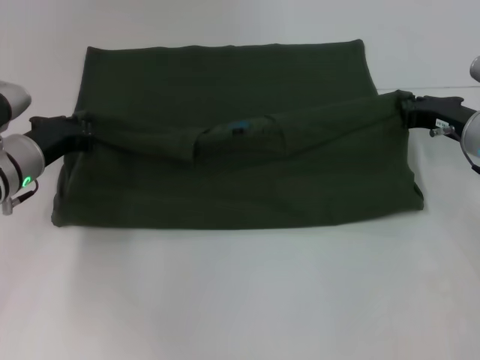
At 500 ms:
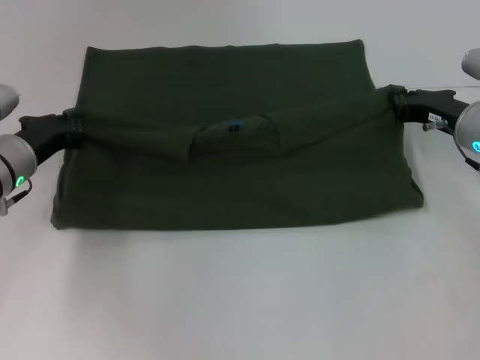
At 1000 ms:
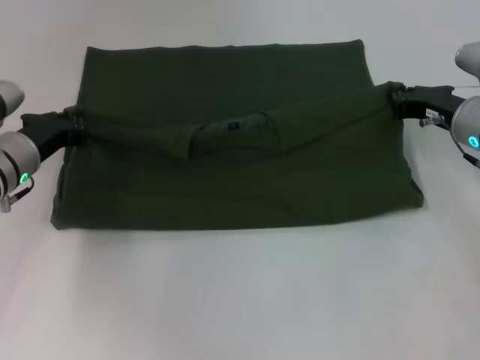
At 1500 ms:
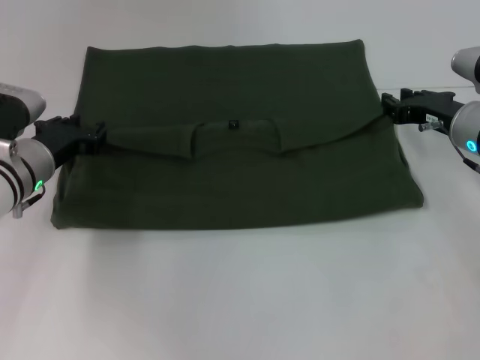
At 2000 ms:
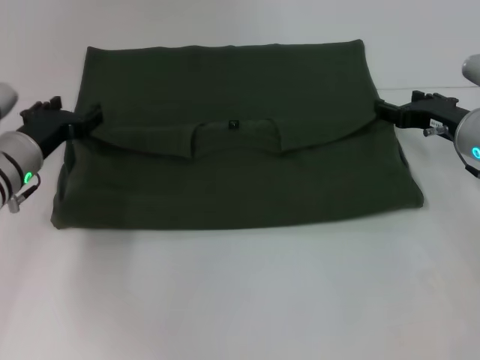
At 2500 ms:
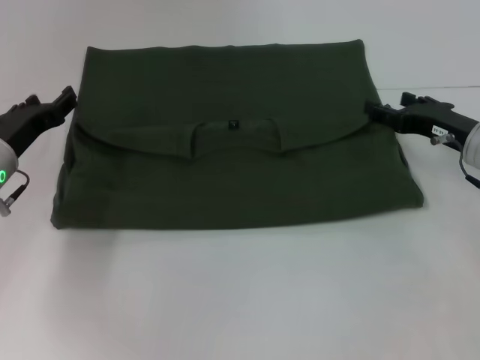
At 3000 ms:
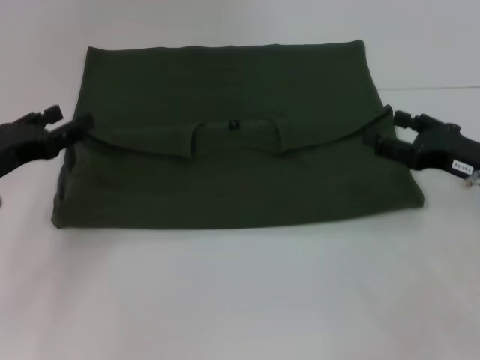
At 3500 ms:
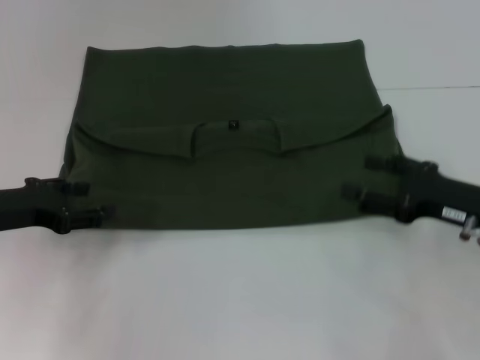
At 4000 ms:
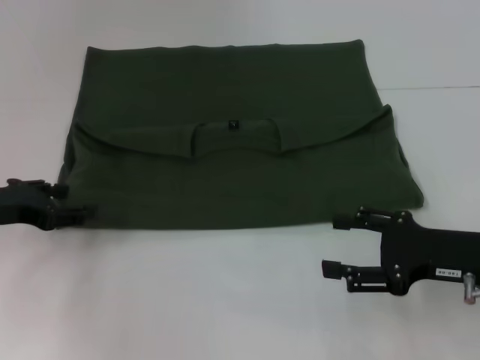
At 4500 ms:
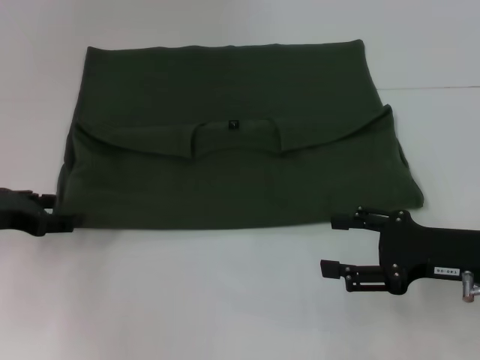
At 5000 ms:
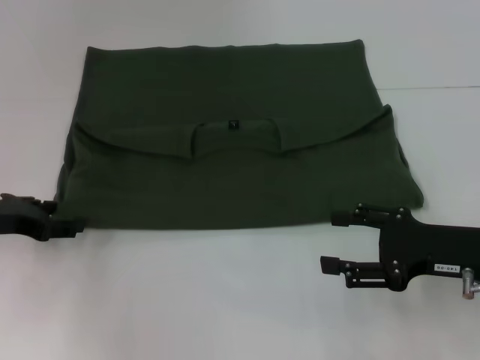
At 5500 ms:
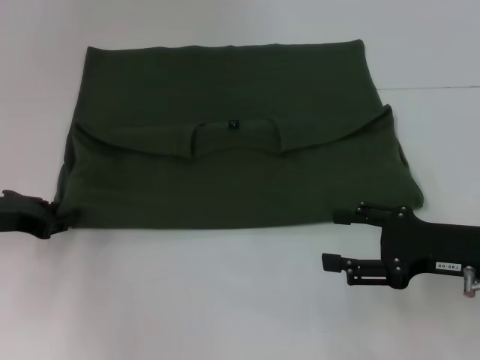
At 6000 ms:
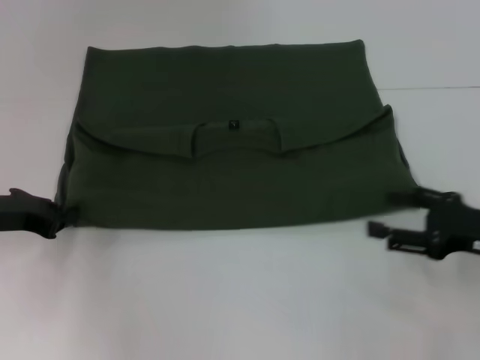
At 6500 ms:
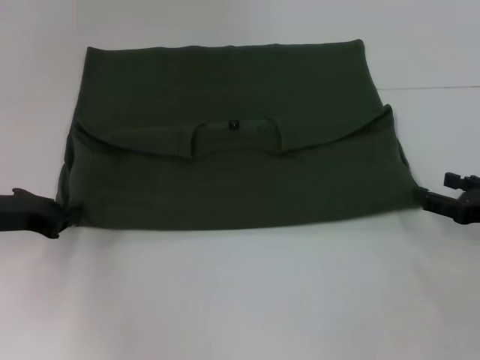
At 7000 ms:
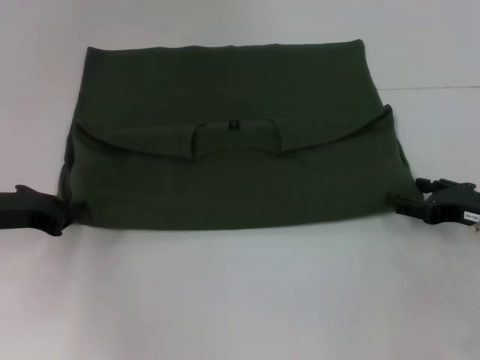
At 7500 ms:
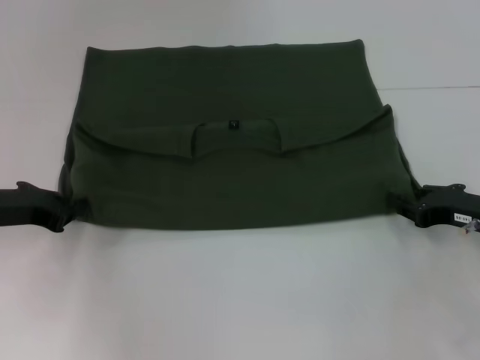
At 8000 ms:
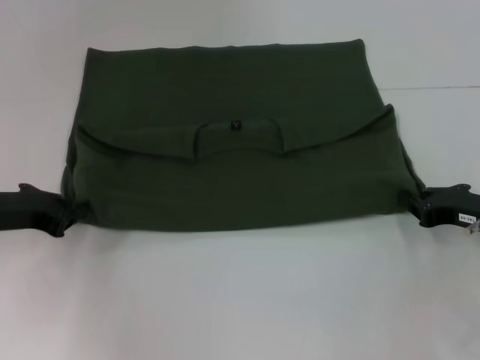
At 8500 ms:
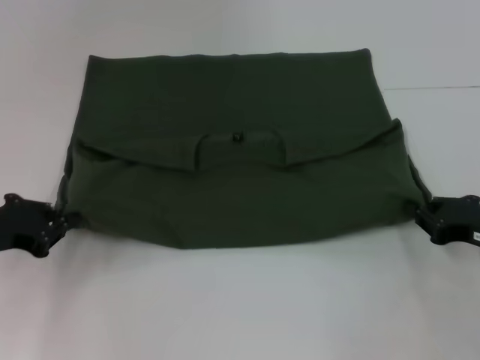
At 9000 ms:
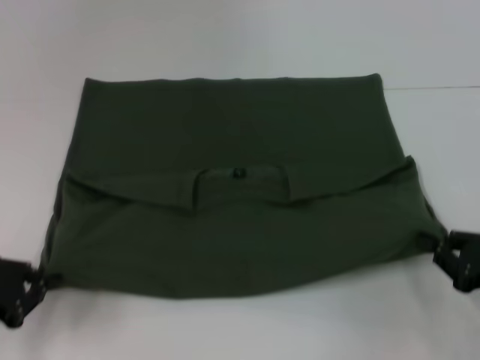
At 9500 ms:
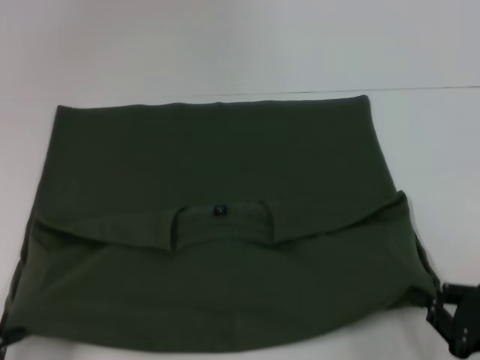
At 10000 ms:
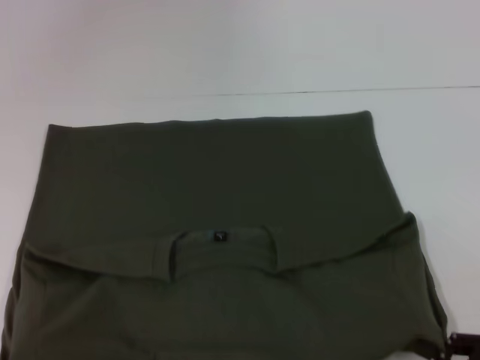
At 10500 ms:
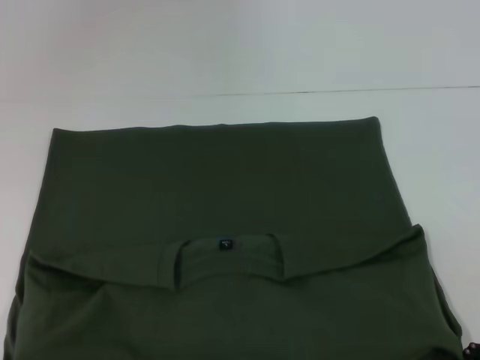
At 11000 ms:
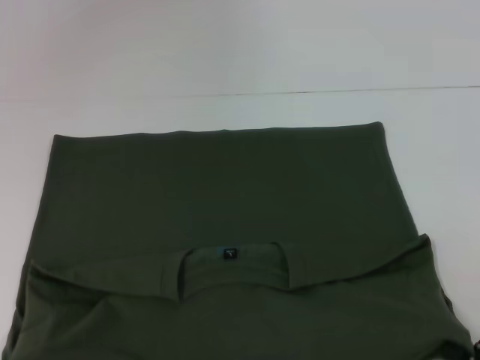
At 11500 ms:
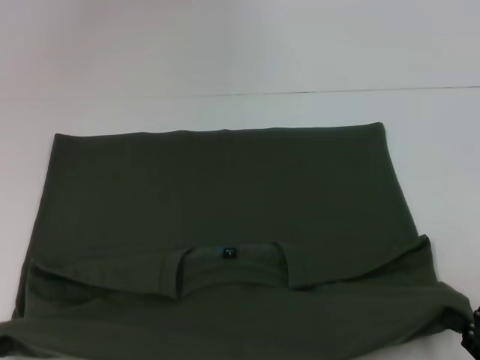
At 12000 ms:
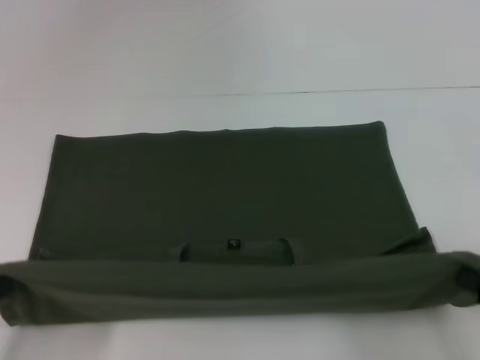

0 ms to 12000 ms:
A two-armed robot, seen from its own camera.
Step, 2000 ms to 9500 ms: Pull the clothes with your left hand.
Step, 2000 ms to 9500 ms: Pull the clothes with your right hand.
0 ms to 2000 ms: The left gripper opens up. Meanwhile the right gripper opens.
2000 ms to 4000 ms: The right gripper travels backward by approximately 15 cm. The left gripper shifts approximately 10 cm to the left and backward.
4000 ms to 6000 ms: The left gripper closes its fingers.
6000 ms to 8000 ms: The right gripper changes place by about 5 cm, and closes up.
8000 ms to 10000 ms: Both grippers move backward, about 20 cm.
10000 ms to 12000 ms: The right gripper moves some 5 cm.

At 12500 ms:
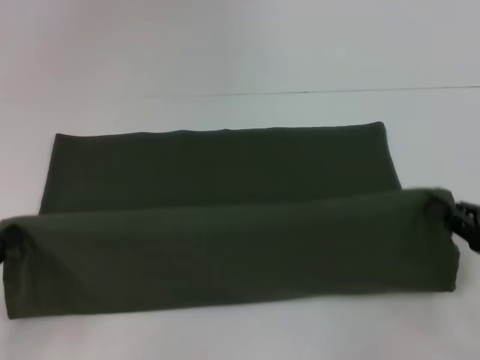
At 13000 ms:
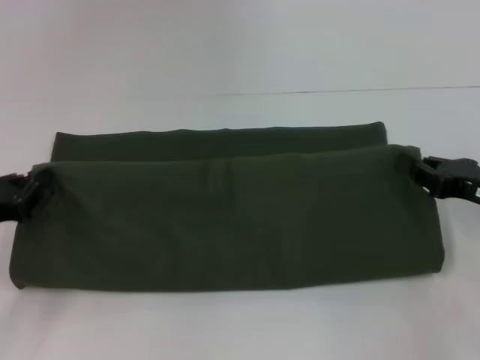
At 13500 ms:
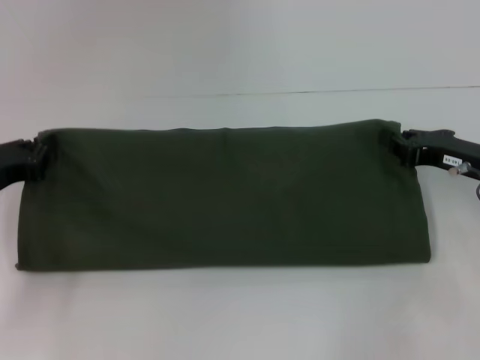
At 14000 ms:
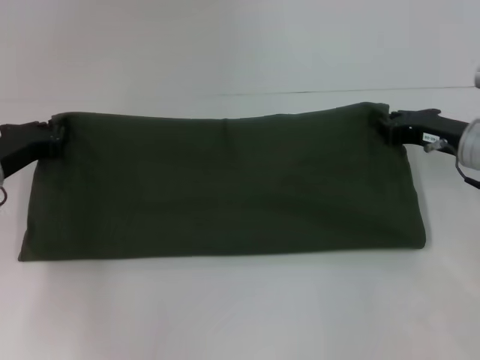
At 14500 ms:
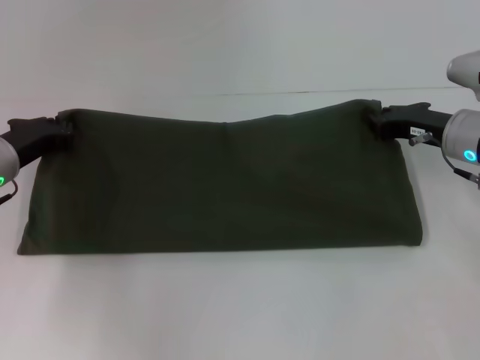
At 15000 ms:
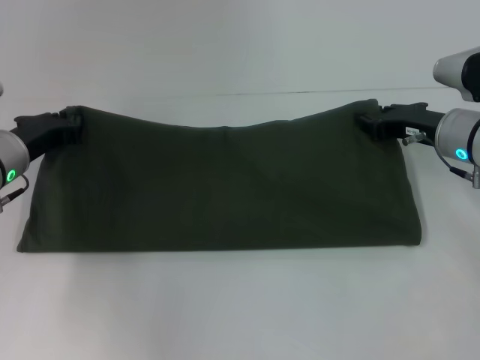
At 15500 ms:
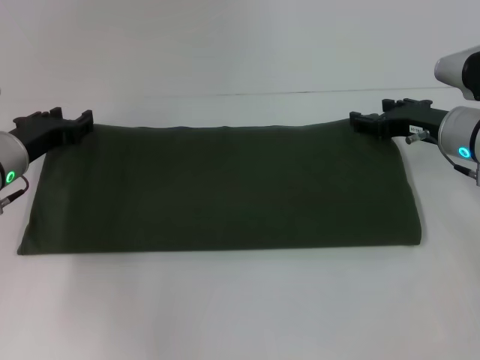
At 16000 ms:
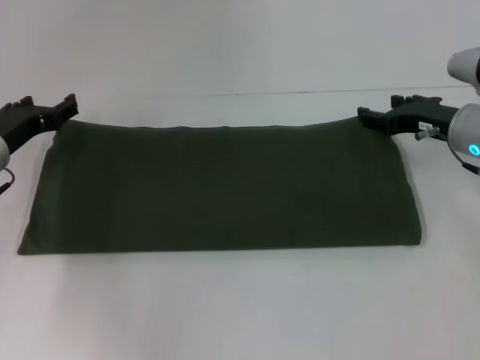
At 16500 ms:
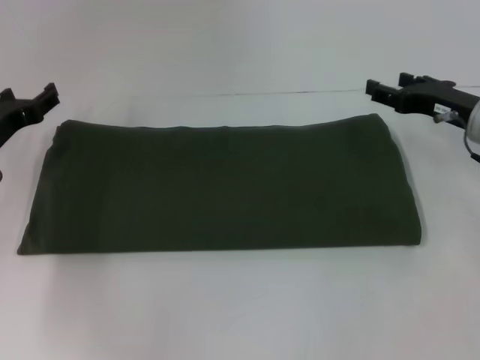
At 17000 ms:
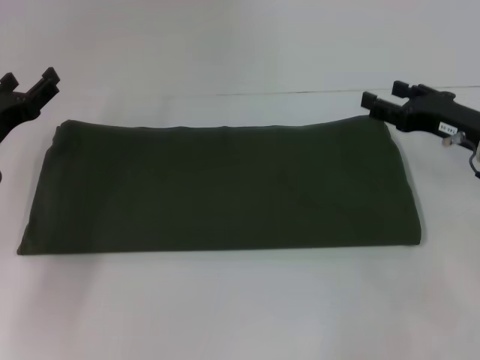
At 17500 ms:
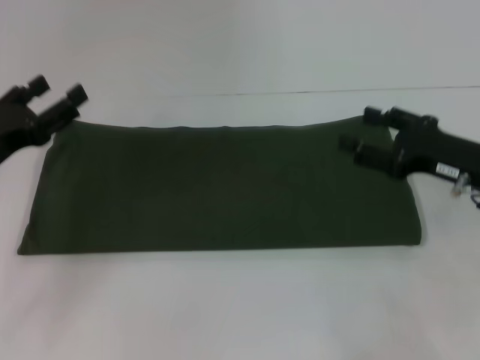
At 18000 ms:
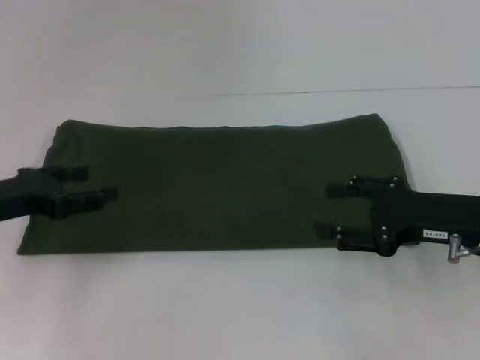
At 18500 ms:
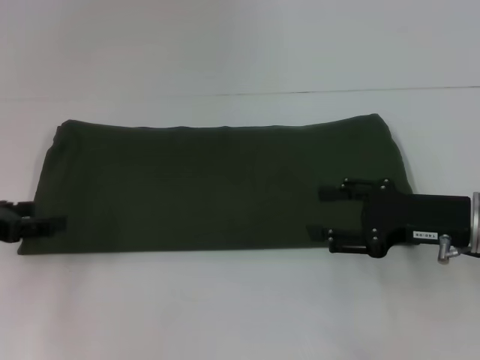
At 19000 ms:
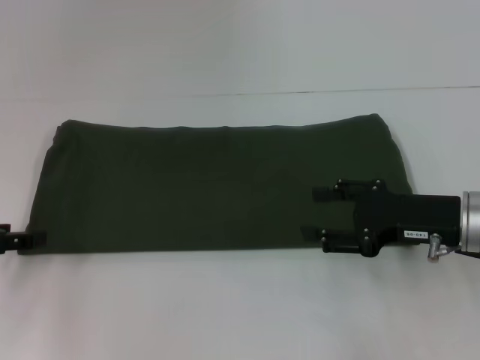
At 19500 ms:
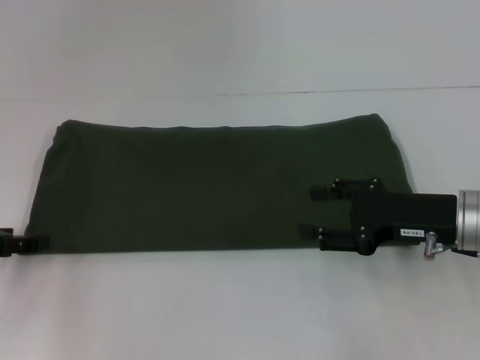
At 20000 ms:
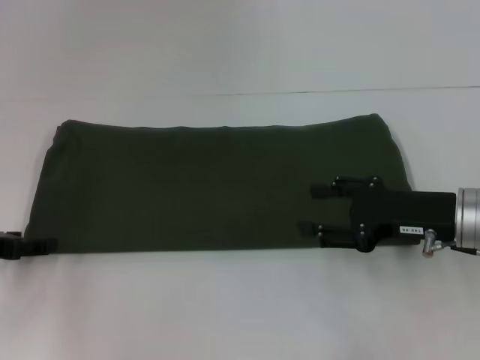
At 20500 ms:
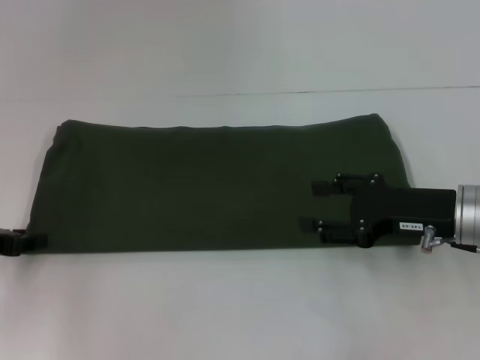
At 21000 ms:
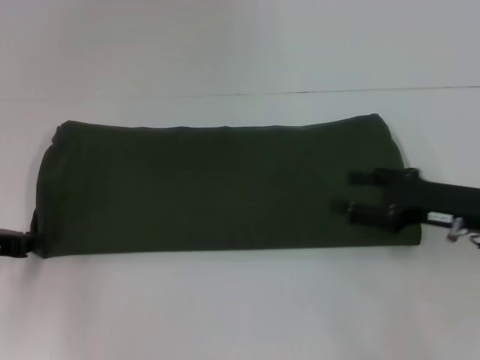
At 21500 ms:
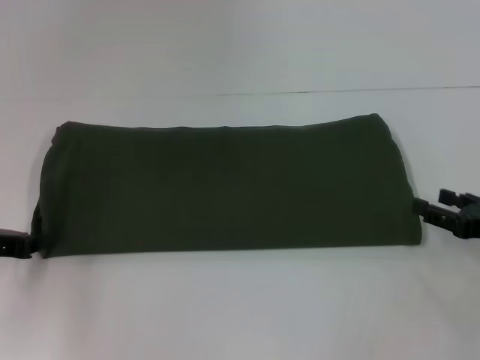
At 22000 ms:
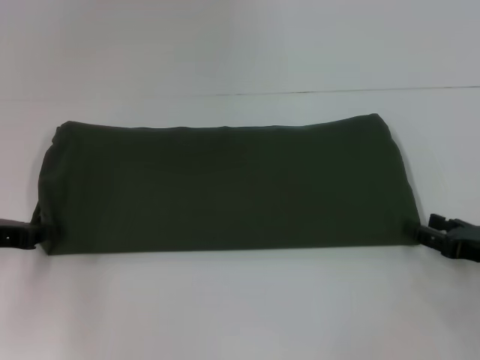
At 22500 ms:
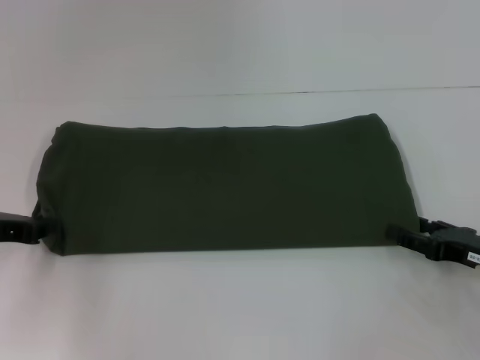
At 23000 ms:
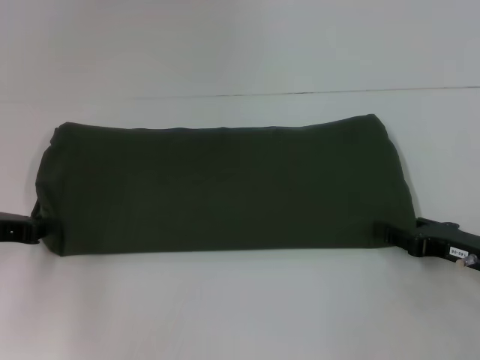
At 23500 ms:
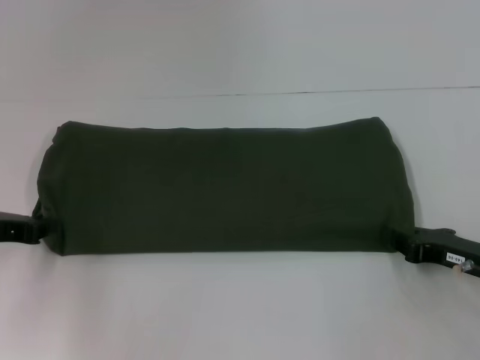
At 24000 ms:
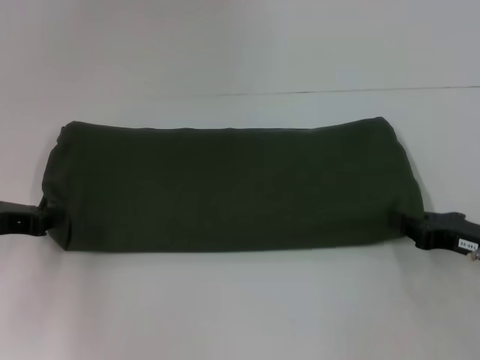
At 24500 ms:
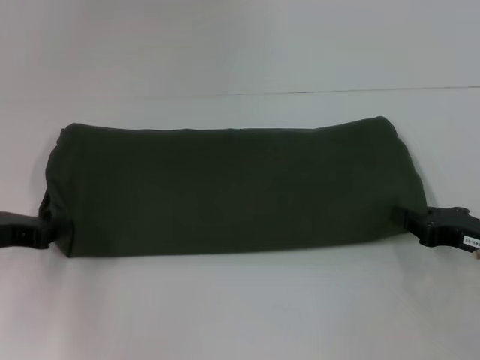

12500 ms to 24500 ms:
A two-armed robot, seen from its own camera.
Step, 12500 ms to 15000 ms: Fold the clothes with your left hand.
Step, 12500 ms to 15000 ms: Fold the clothes with your right hand.
12500 ms to 14500 ms: The left gripper heads forward and to the right, covering approximately 20 cm; the right gripper travels forward and to the left by roughly 20 cm.
14500 ms to 16500 ms: The left gripper opens its fingers. The right gripper opens up.
16500 ms to 18500 ms: The grippers both shift backward by about 10 cm.
18500 ms to 20500 ms: The grippers move only a little.
20500 ms to 22500 ms: The left gripper closes up, while the right gripper heads to the right and downward, covering approximately 10 cm.
22500 ms to 24500 ms: The right gripper closes.

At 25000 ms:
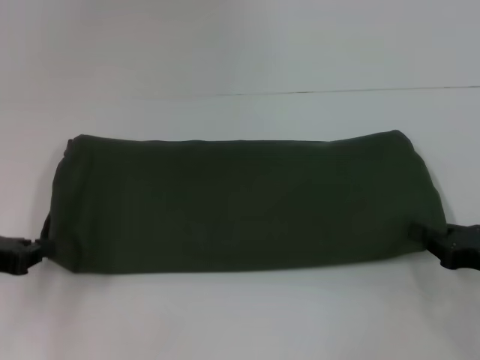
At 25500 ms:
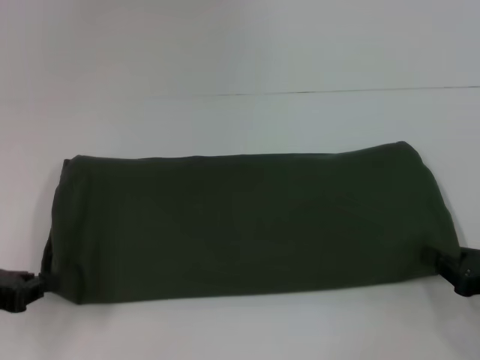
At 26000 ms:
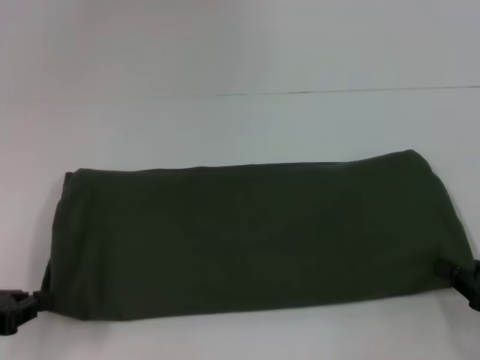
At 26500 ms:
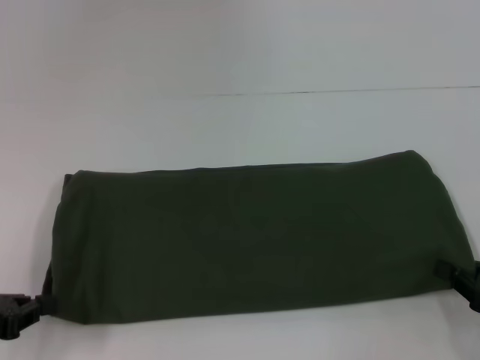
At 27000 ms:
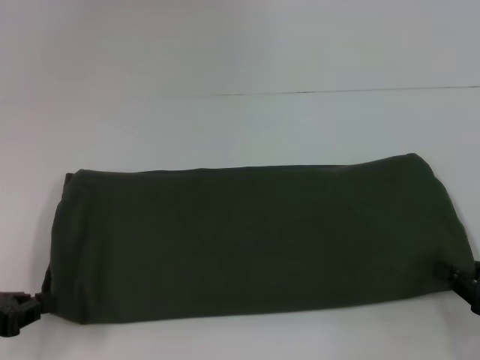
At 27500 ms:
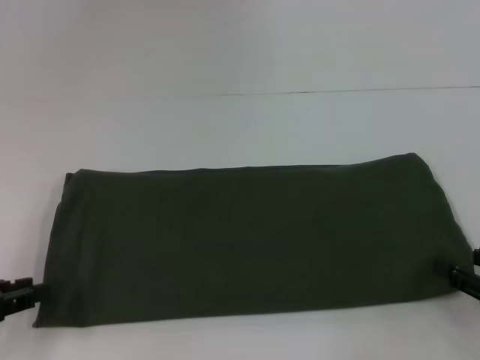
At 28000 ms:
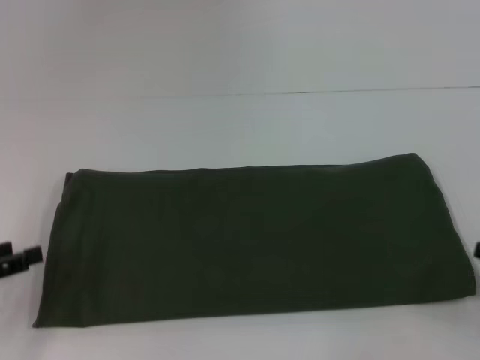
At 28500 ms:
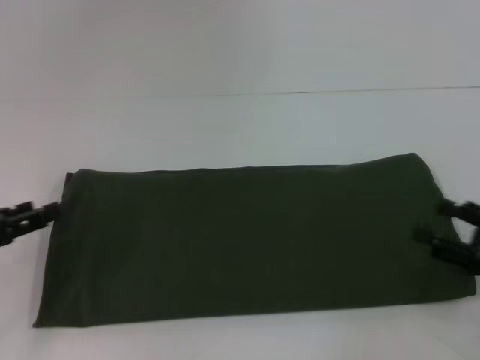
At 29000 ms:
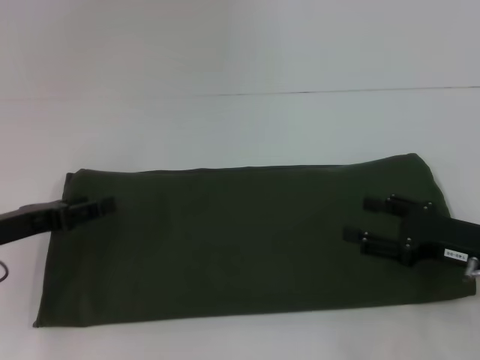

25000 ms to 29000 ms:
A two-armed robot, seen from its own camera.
Step, 25000 ms to 27000 ms: Pull the clothes with your left hand.
Step, 25000 ms to 27000 ms: Pull the clothes with your right hand.
25000 ms to 27000 ms: The right gripper ends up about 5 cm from where it was; the left gripper travels backward by roughly 5 cm.
27000 ms to 29000 ms: The left gripper heads forward, covering some 5 cm, and opens, while the right gripper shifts some 10 cm forward and to the left, and opens.
